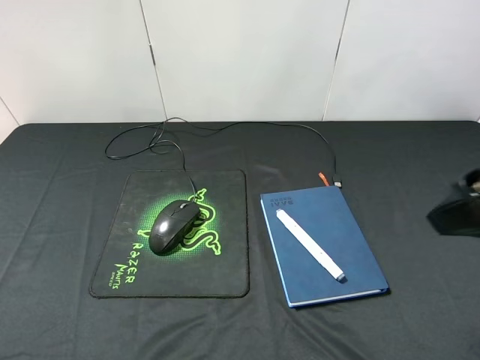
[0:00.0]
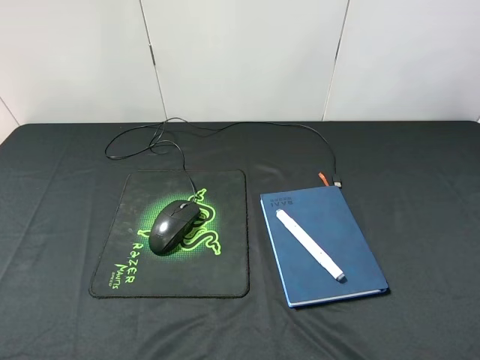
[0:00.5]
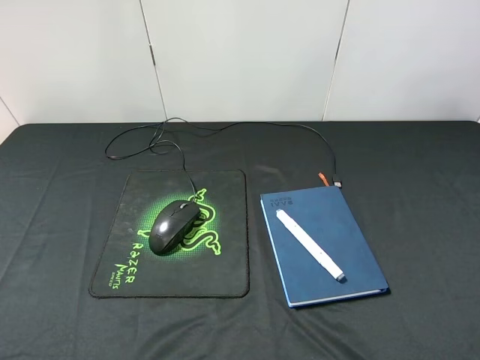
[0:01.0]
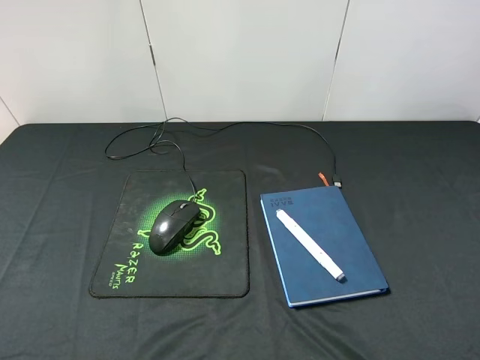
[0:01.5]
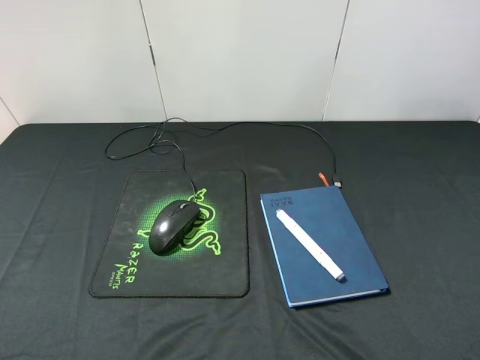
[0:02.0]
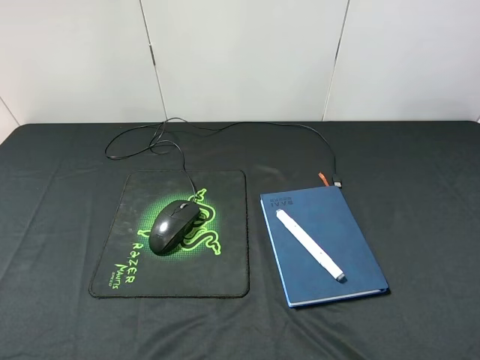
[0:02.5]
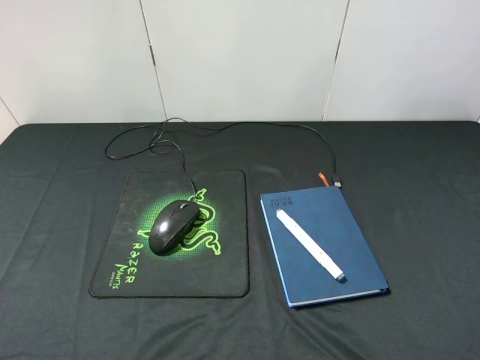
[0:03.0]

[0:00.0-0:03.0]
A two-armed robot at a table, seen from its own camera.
0:00.0 to 0:01.5: The right gripper moves backward and to the right, some 15 cm.
